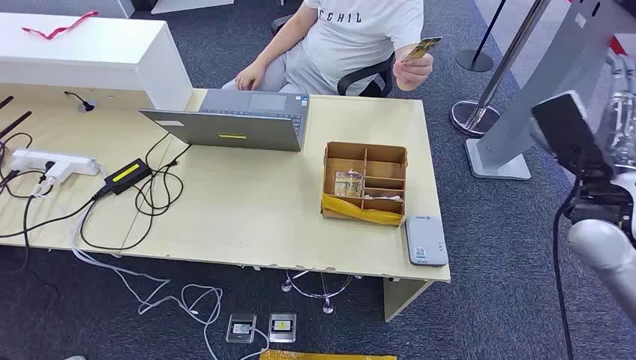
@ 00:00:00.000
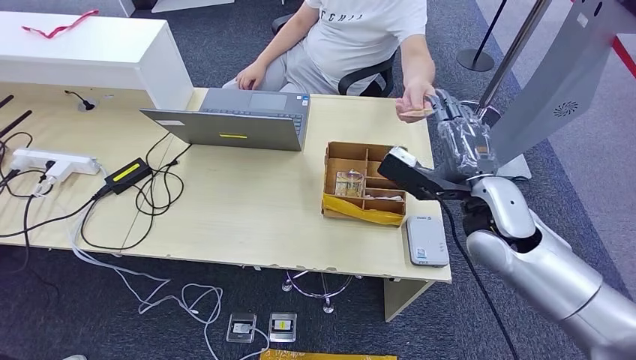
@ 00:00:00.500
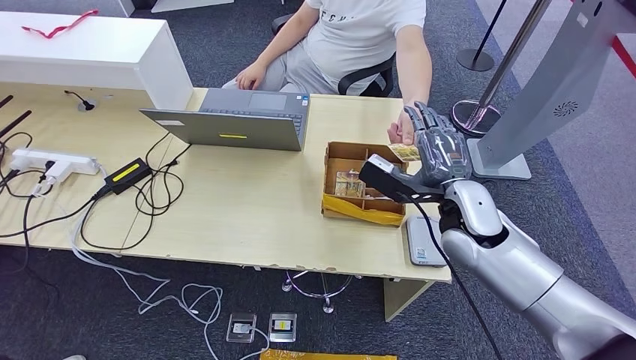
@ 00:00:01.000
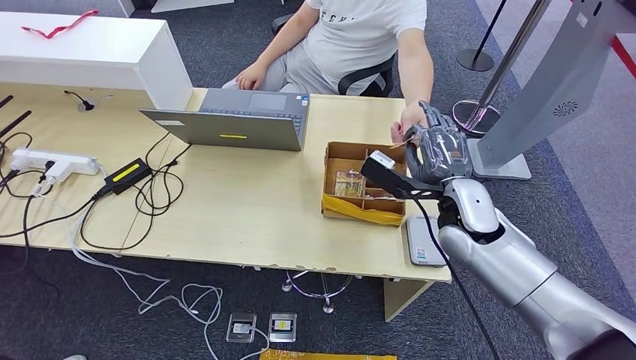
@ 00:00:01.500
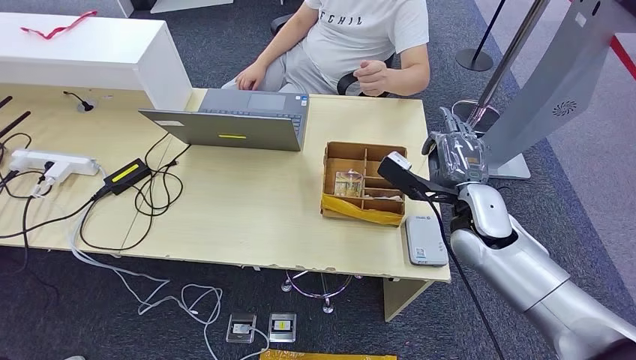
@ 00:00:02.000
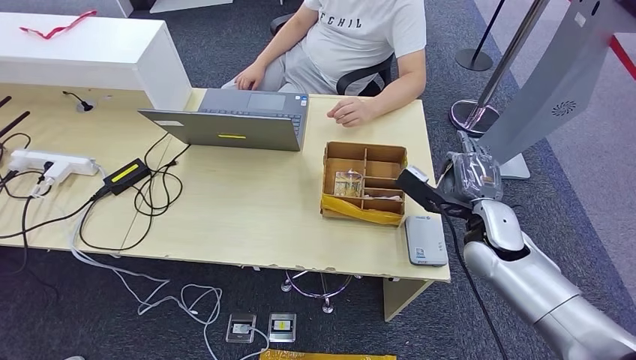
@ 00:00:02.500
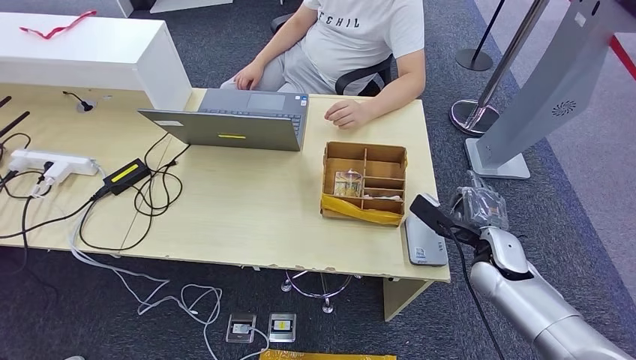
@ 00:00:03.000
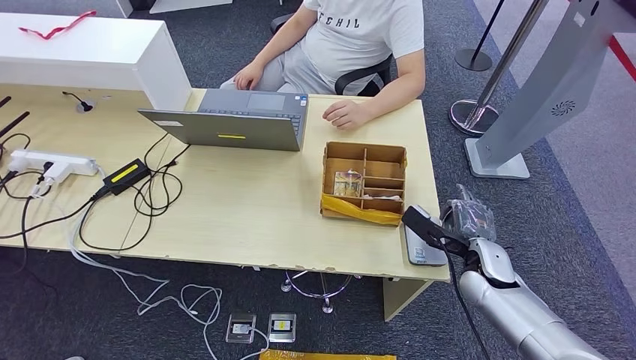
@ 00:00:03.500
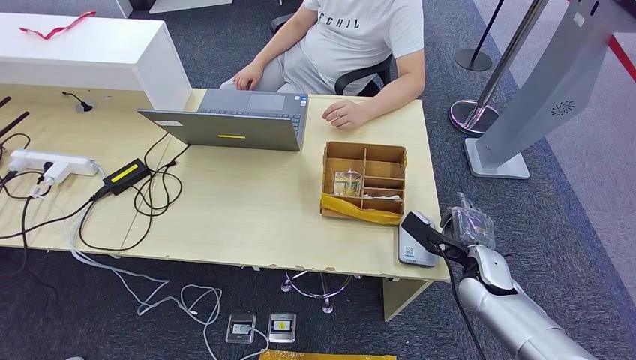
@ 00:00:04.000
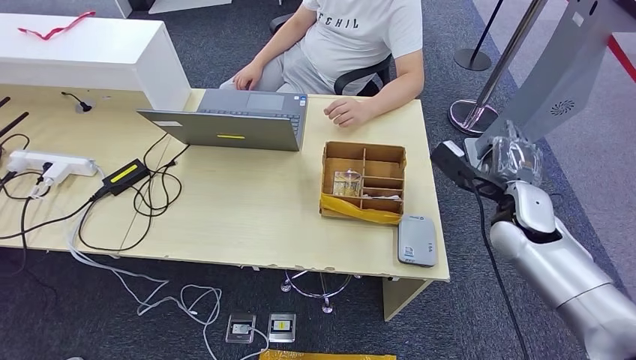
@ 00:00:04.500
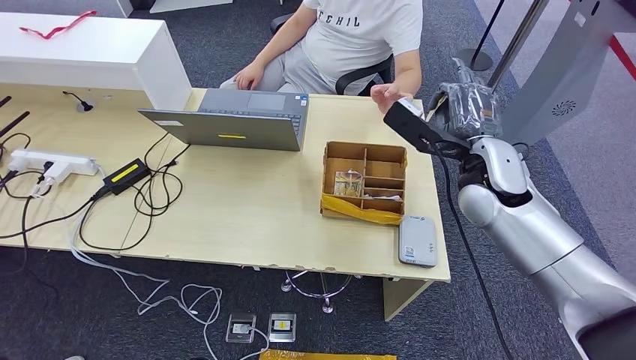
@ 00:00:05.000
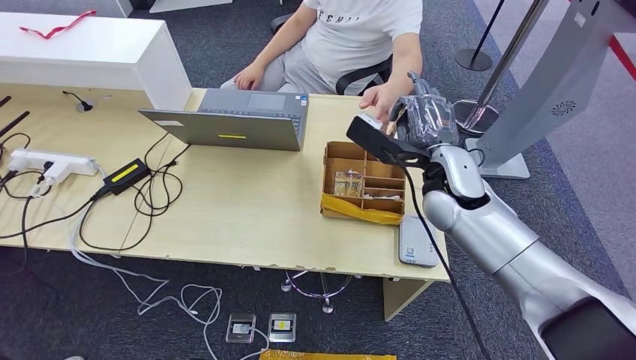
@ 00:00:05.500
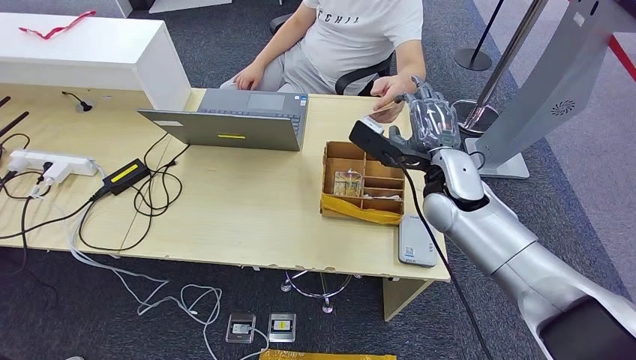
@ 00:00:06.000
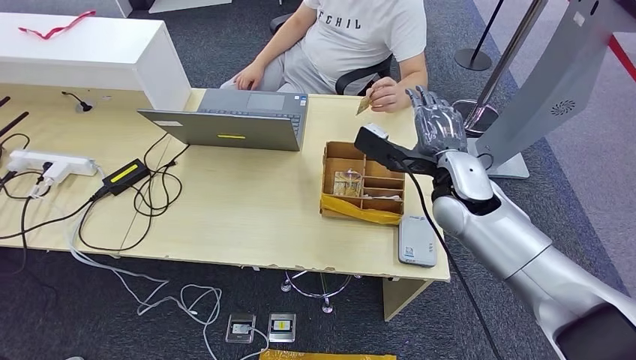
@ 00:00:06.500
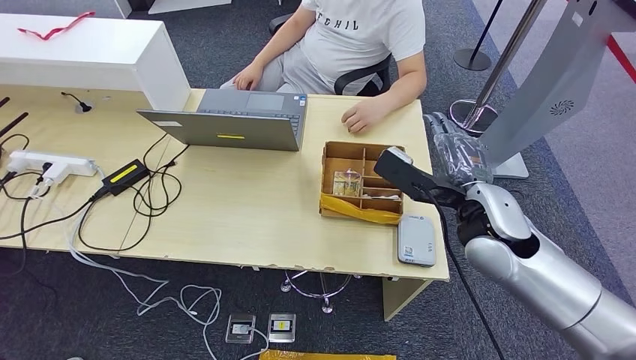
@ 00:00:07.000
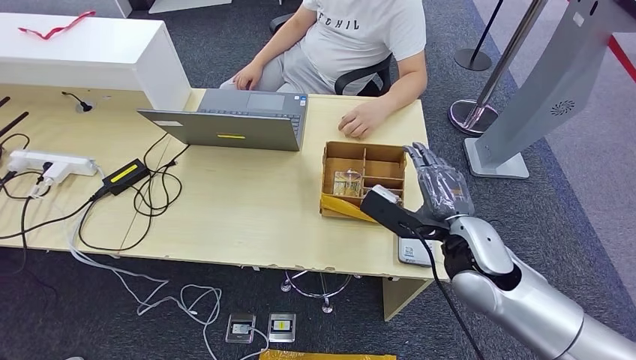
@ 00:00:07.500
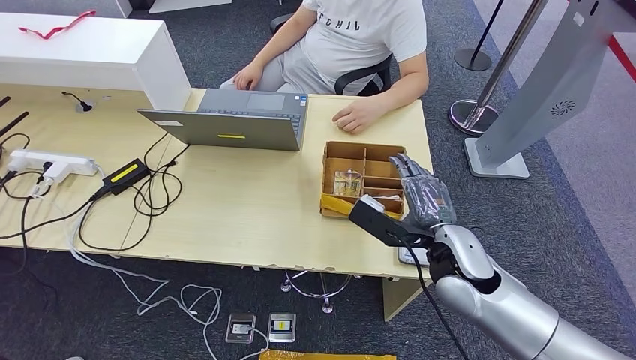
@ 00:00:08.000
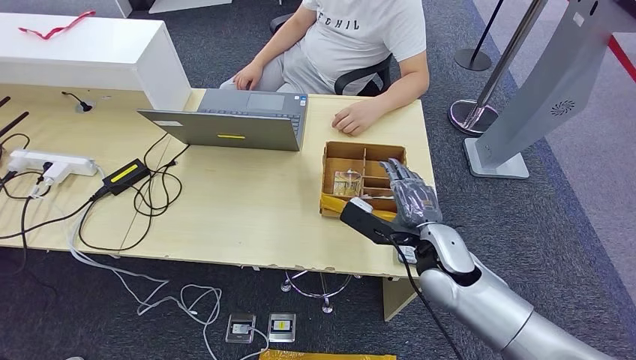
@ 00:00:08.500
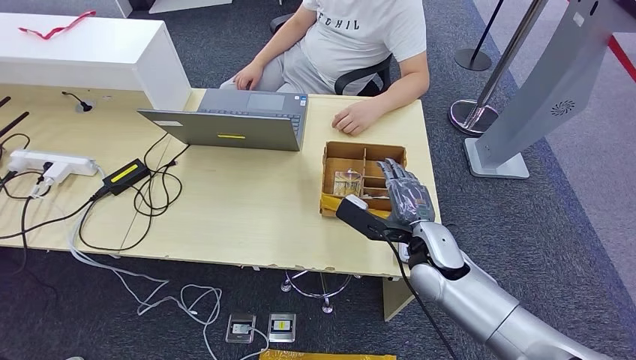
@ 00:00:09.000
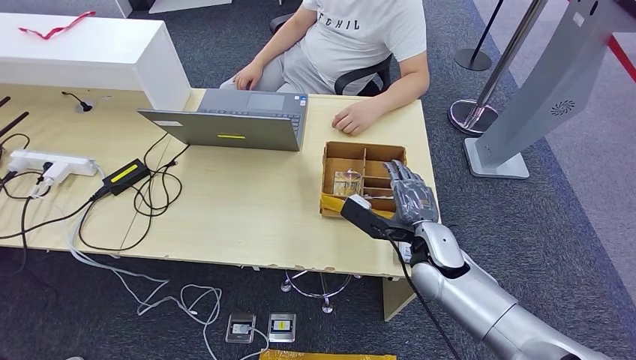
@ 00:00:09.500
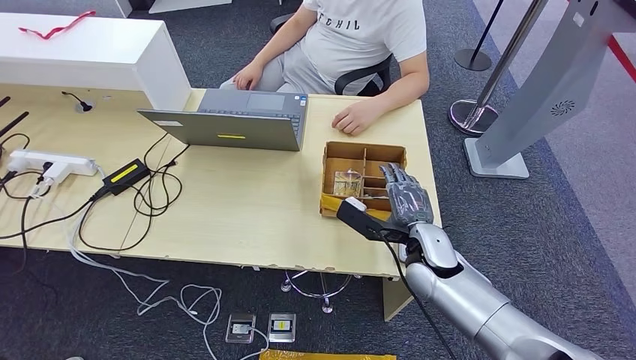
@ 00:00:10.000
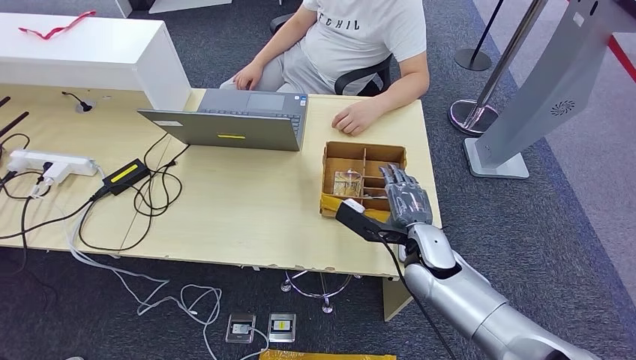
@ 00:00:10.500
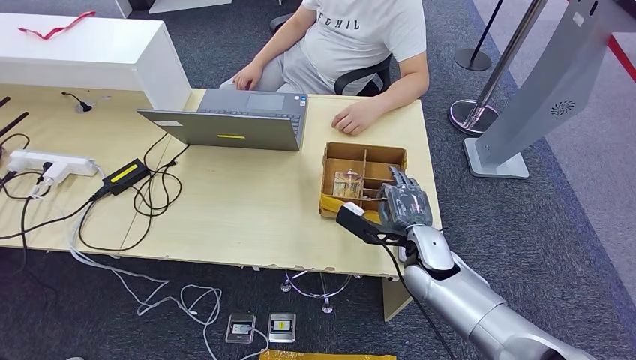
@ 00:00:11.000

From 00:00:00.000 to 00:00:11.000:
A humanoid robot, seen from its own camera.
Step, from 00:00:00.000 to 00:00:02.000: Take the ID card from the person's hand.
Step, from 00:00:03.000 to 00:00:04.000: Place the ID card on the card reader.
Step, from 00:00:05.000 to 00:00:06.000: Hand the ID card to the person.
From 00:00:02.000 to 00:00:03.500: The right hand moves downward and to the right, about 15 cm.
From 00:00:03.500 to 00:00:05.500: The right hand goes approximately 20 cm upward and to the left.
From 00:00:05.500 to 00:00:07.500: The right hand is displaced backward by about 10 cm.
From 00:00:07.500 to 00:00:09.000: The right hand travels downward by some 5 cm.
From 00:00:09.000 to 00:00:11.000: The hands stay close to where they were, moving slightly.

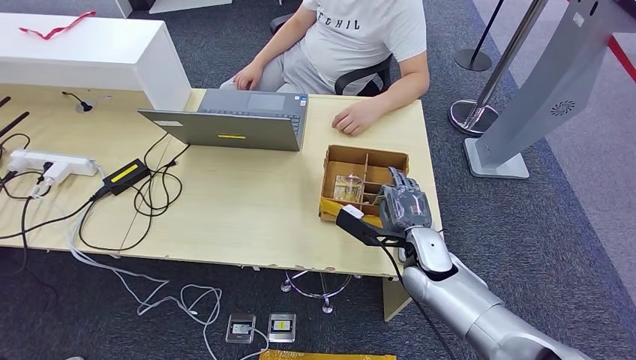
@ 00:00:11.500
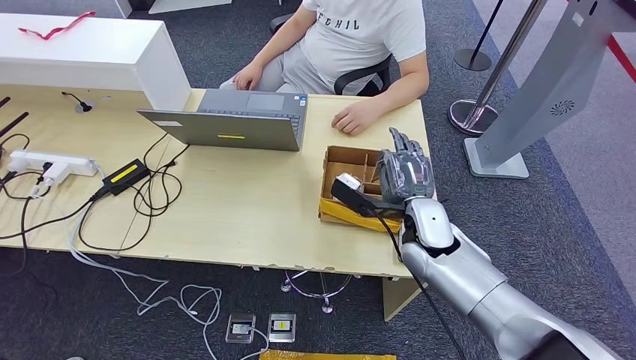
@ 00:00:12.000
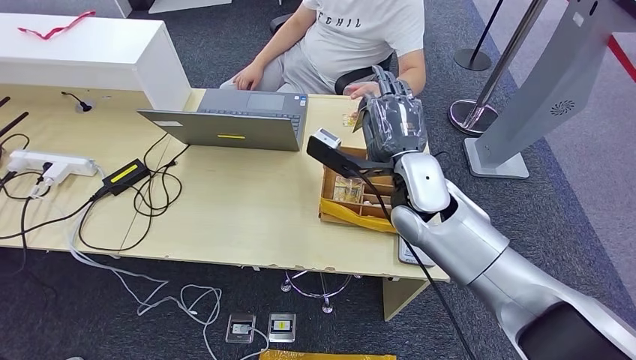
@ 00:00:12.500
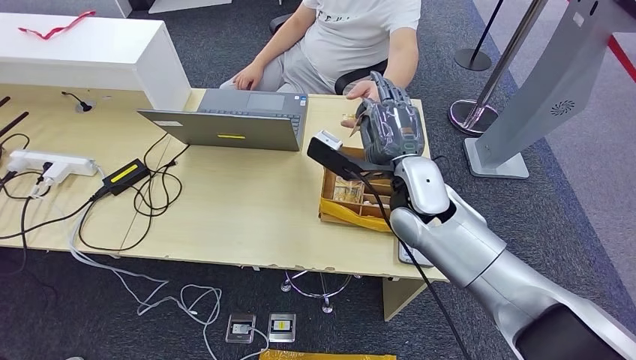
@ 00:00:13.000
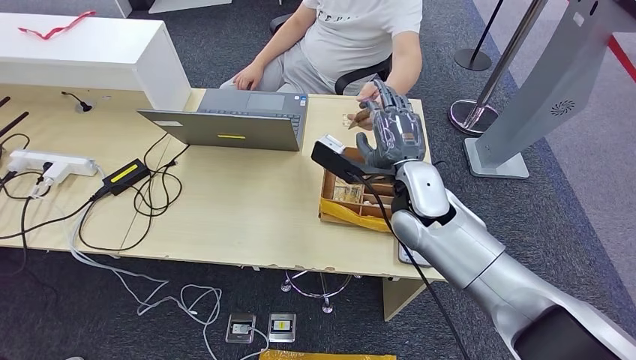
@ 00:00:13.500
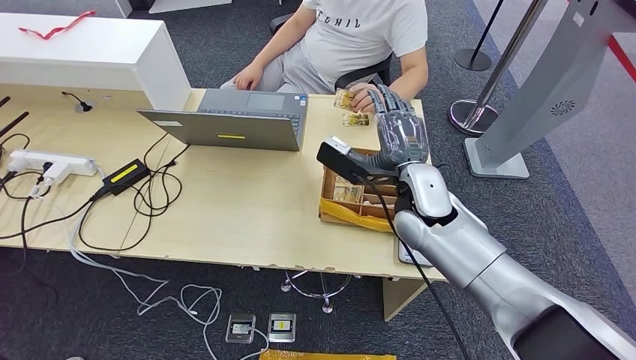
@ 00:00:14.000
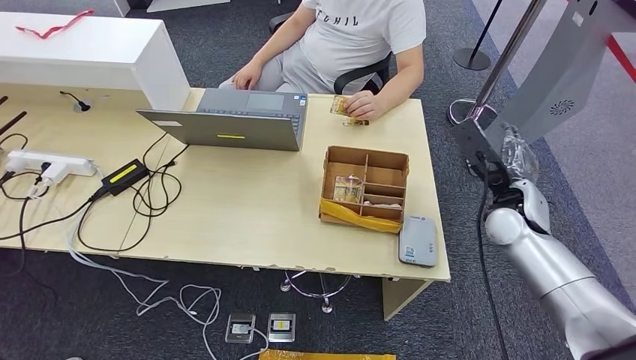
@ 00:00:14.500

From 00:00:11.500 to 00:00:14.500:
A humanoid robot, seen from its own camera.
Step, from 00:00:13.000 to 00:00:14.500: Hand the room key to the person.
From 00:00:11.500 to 00:00:13.000: The right hand goes roughly 15 cm upward.
From 00:00:13.000 to 00:00:14.500: The right hand moves to the right, roughly 15 cm.
